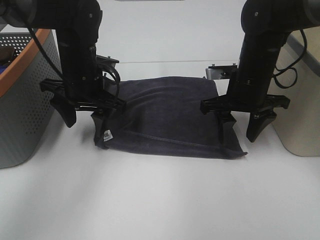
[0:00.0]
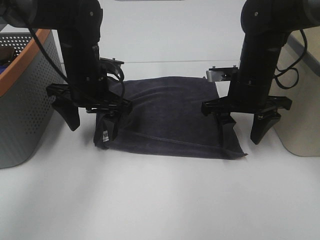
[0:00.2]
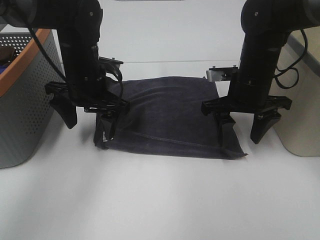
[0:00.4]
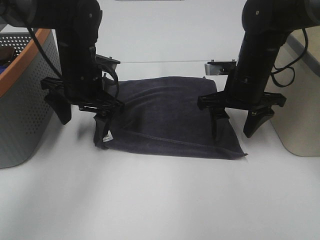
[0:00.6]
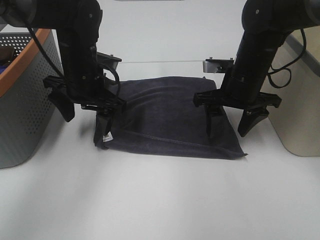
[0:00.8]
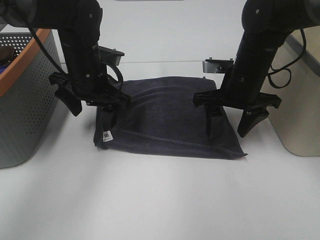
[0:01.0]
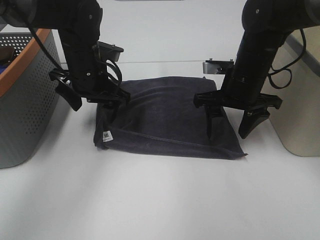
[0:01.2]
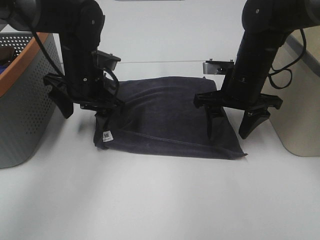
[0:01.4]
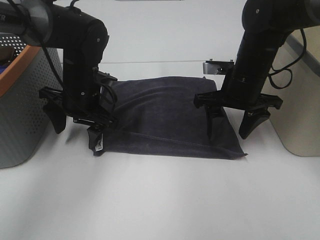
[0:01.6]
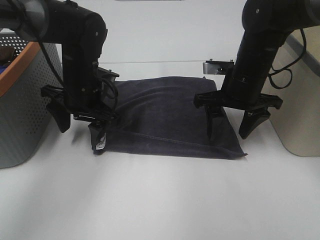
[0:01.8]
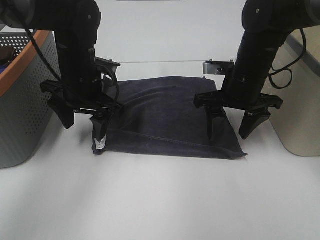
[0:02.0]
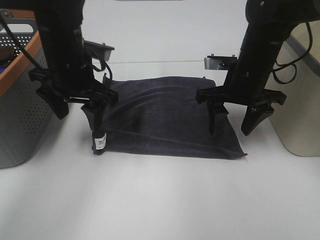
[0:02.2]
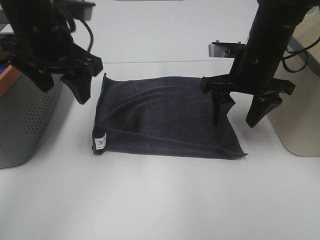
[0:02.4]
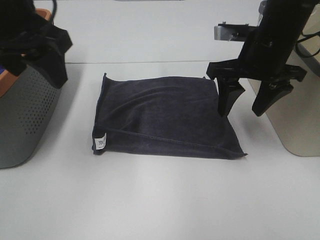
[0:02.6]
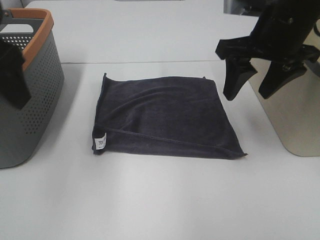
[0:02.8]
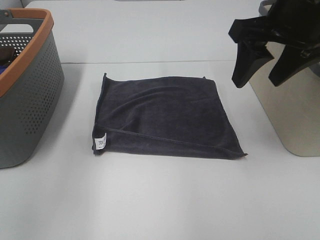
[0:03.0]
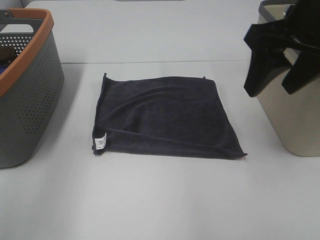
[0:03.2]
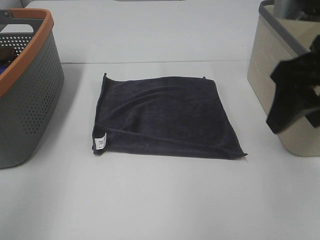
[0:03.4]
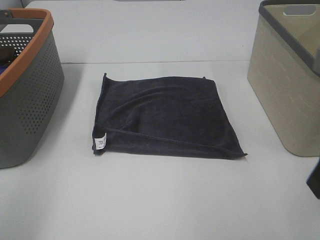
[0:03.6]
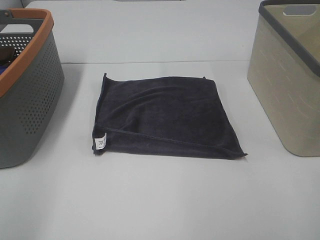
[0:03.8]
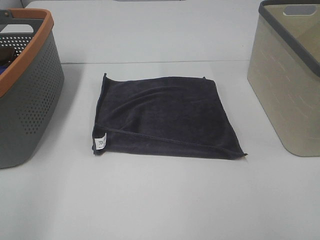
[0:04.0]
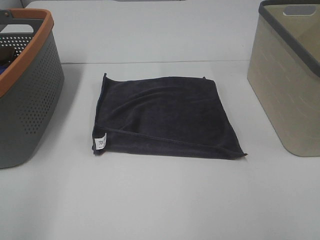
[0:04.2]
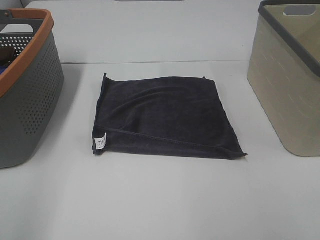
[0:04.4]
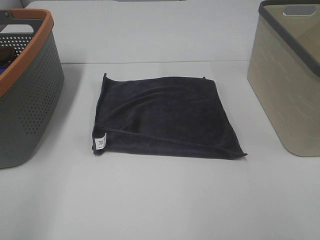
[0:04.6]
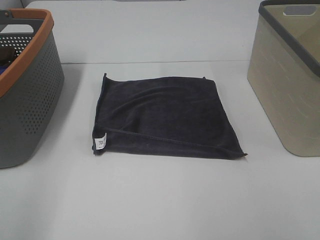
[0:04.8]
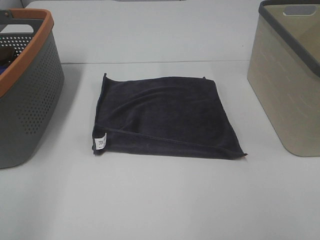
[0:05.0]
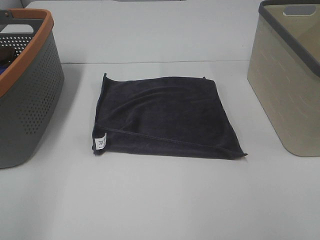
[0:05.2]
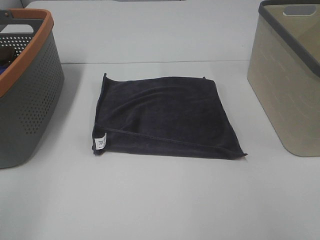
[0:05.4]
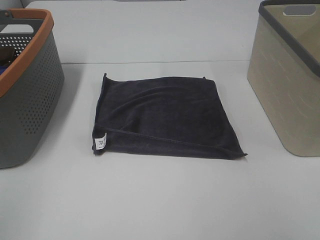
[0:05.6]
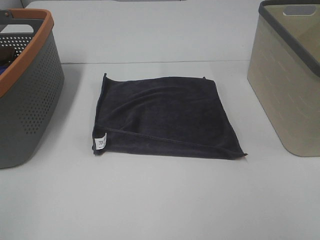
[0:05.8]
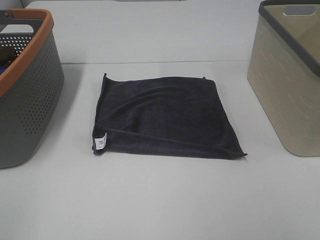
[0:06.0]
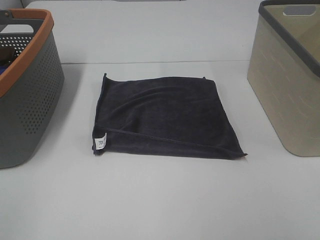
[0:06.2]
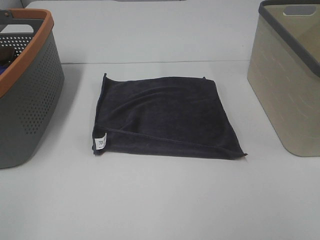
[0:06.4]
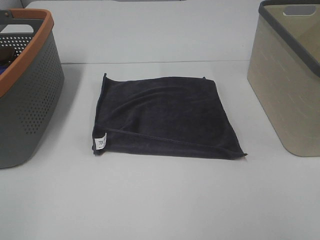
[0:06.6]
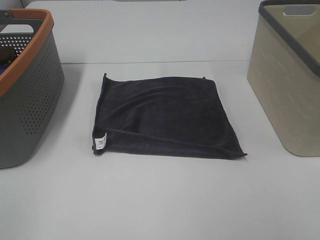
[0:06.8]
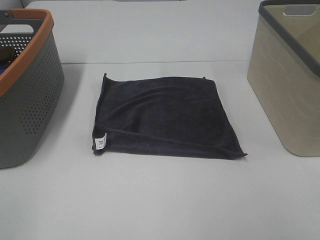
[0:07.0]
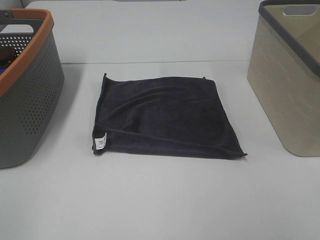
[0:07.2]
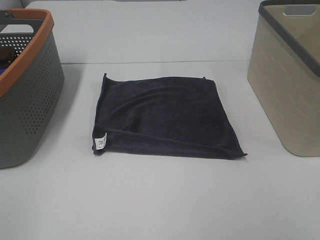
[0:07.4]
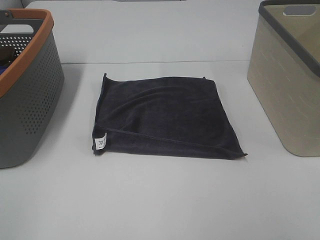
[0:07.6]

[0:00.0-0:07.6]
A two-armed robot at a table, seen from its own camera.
Task of the whole recording: Remove the towel and place it.
0:00.0 to 0:01.6: There are only small adjustments of the grippers.
0:01.6 to 0:03.0: The right gripper is displaced upward and backward by about 15 cm. Meanwhile the left gripper is displaced backward, upward and to the left by about 30 cm.
0:03.0 to 0:04.6: The left gripper travels backward and to the left by about 15 cm. Meanwhile the right gripper travels backward by roughly 30 cm.
0:06.0 to 0:07.6: Both grippers stay put.

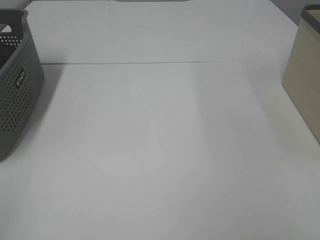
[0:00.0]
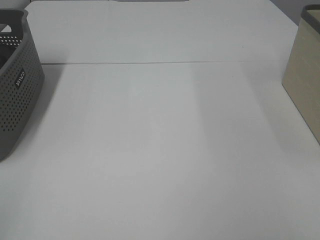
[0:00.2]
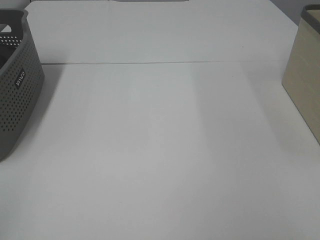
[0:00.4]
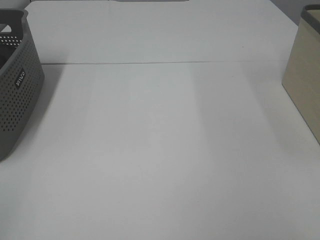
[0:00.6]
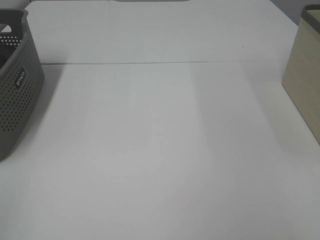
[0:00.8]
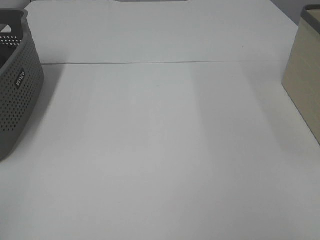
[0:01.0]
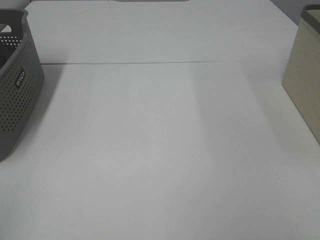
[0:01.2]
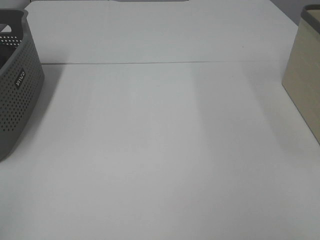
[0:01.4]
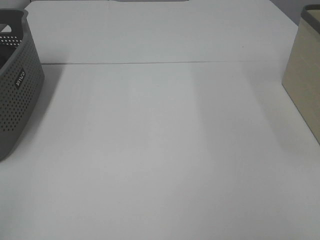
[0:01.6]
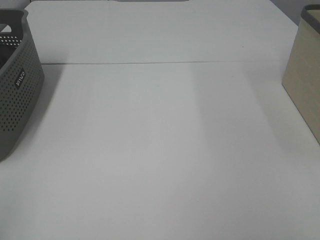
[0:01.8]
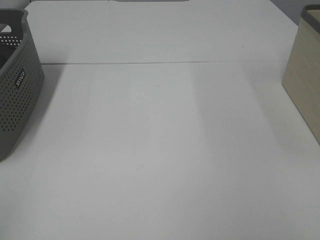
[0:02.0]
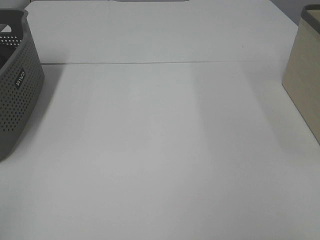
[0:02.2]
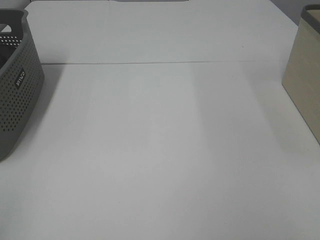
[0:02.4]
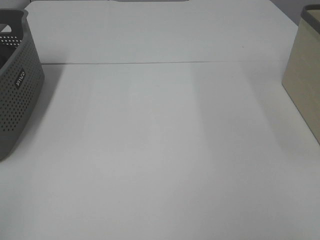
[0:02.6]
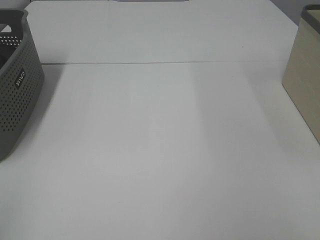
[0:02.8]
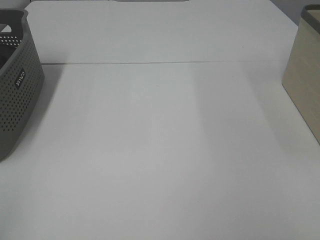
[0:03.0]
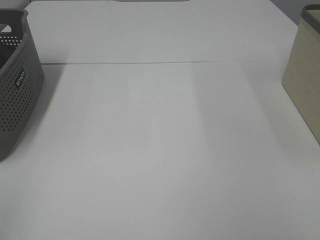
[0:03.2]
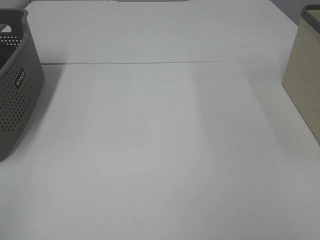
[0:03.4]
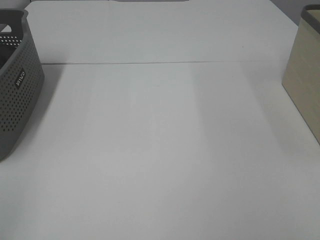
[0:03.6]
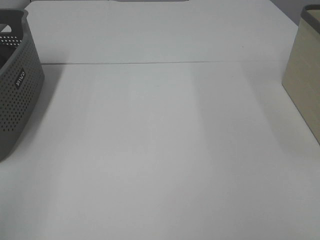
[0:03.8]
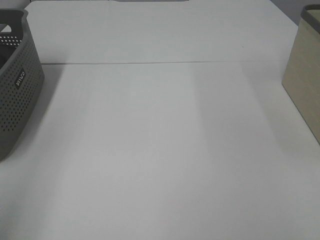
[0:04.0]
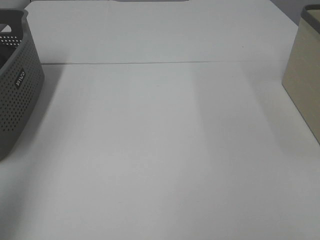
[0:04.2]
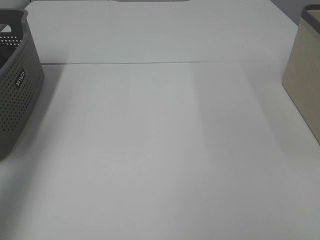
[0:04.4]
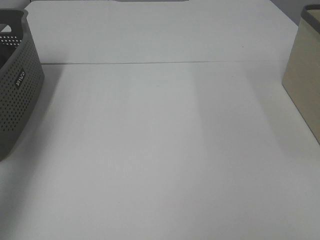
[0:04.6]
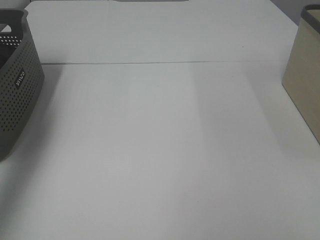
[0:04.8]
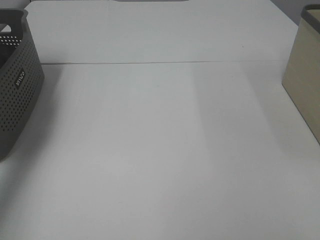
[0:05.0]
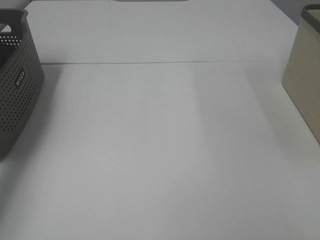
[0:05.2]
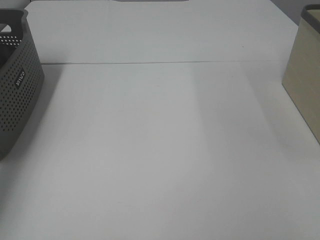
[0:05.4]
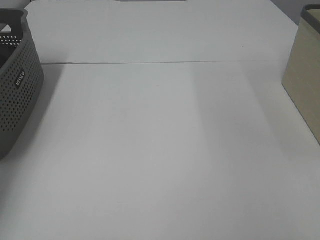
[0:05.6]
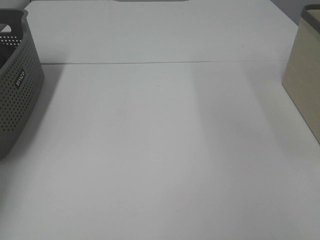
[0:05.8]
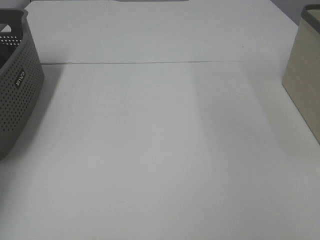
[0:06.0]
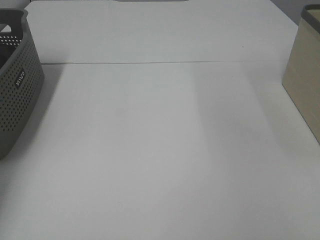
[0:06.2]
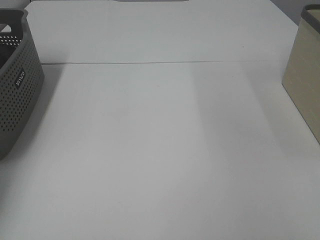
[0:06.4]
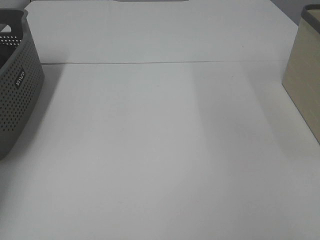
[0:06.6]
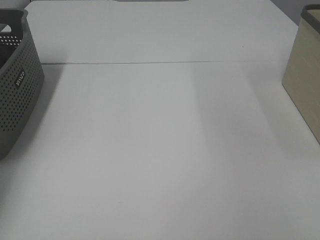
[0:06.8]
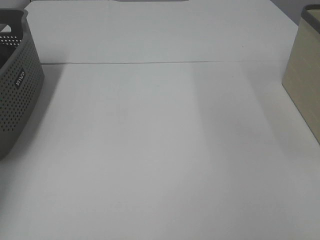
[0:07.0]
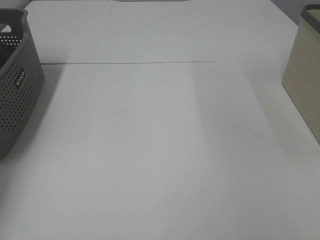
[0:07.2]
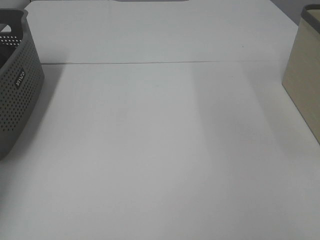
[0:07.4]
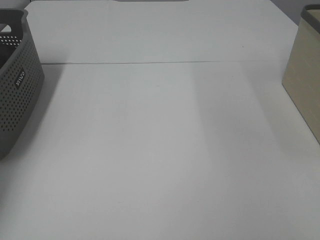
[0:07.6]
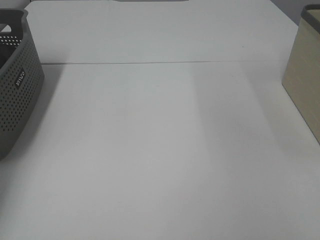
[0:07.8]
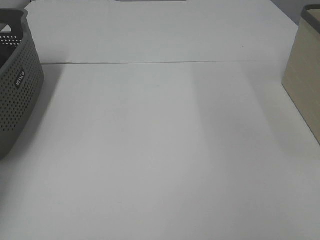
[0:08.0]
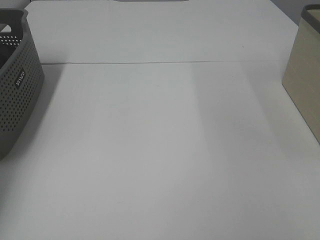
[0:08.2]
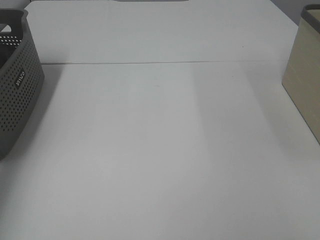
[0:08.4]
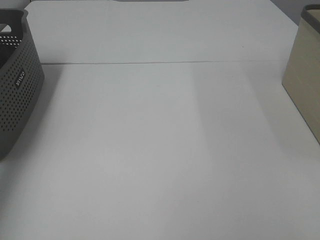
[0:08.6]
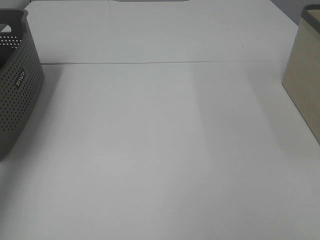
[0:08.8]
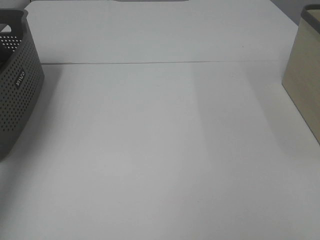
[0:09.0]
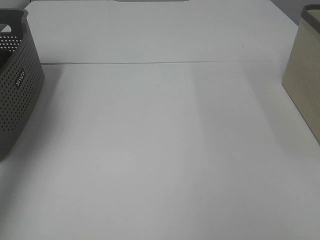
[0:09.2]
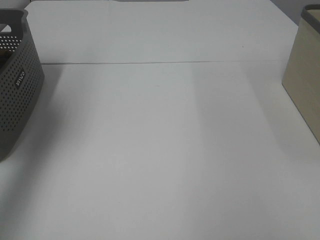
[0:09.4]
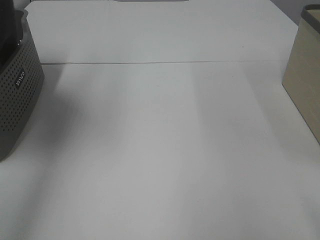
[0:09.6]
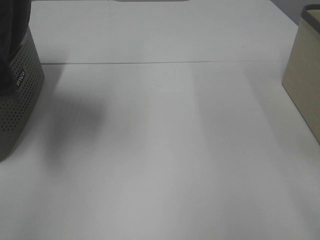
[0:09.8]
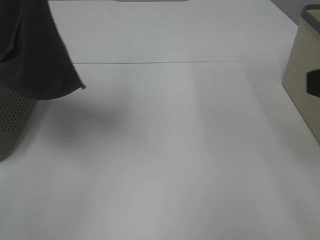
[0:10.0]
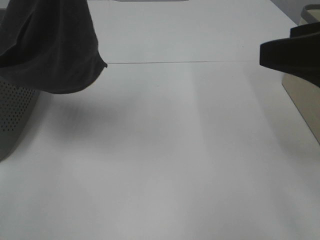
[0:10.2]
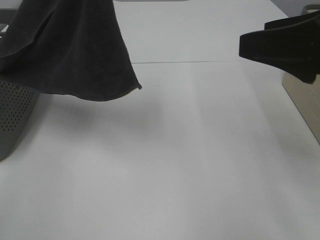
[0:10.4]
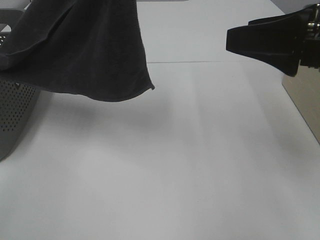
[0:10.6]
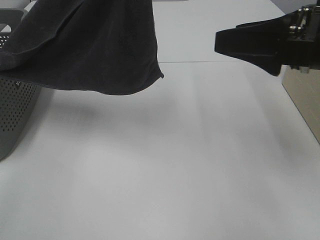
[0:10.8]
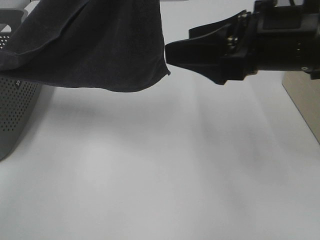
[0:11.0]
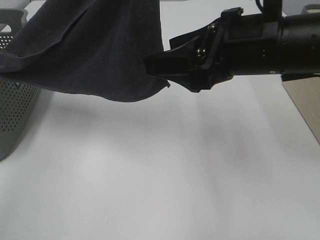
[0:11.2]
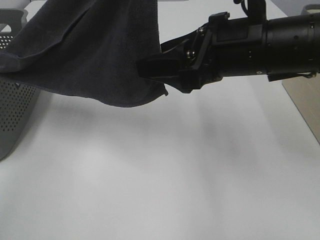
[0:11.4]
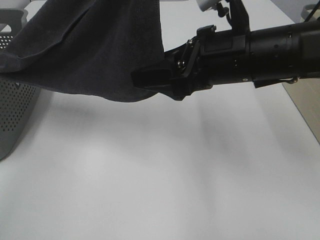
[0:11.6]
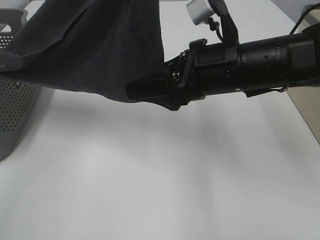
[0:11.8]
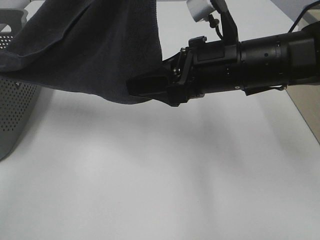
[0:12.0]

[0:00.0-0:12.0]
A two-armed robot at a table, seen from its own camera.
Task of the whole recording: Remove the towel and place it.
0:00.0 to 0:03.0: Neither gripper changes place.
0:03.0 to 0:04.4: The left gripper goes some 25 cm forward and upward.
0:04.4 to 0:06.0: The left gripper shifts some 30 cm forward and downward.
0:07.6 to 0:09.0: The left gripper moves upward and backward, approximately 25 cm.
0:09.0 to 0:10.4: The right gripper travels forward by approximately 20 cm. The left gripper shifts some 25 cm to the right.
0:10.4 to 0:12.0: The right gripper goes roughly 15 cm to the left, downward and forward.

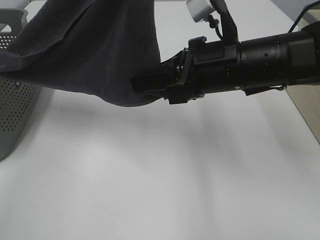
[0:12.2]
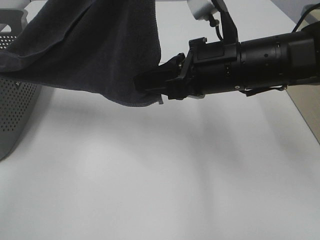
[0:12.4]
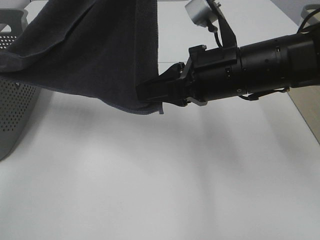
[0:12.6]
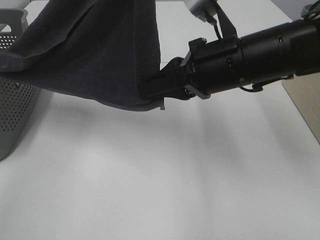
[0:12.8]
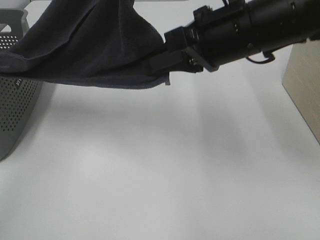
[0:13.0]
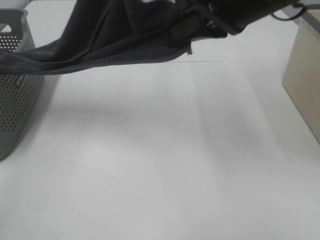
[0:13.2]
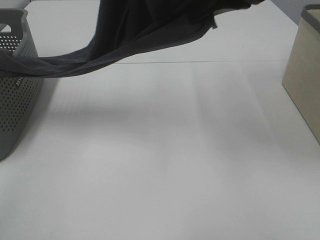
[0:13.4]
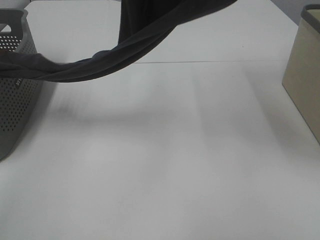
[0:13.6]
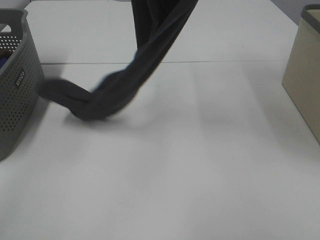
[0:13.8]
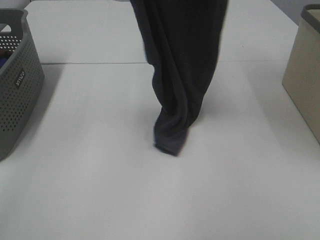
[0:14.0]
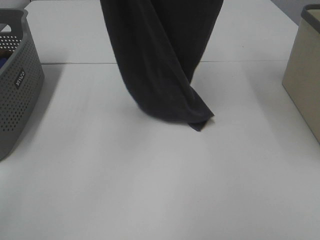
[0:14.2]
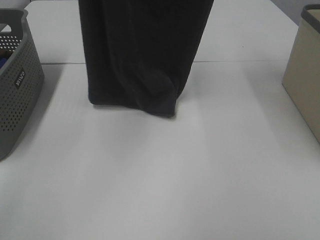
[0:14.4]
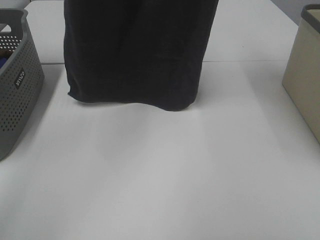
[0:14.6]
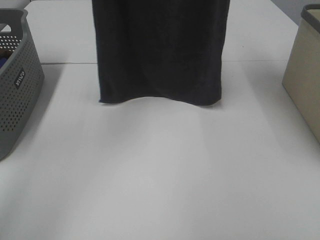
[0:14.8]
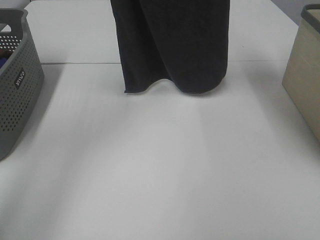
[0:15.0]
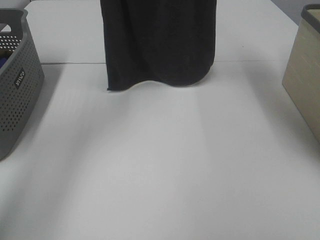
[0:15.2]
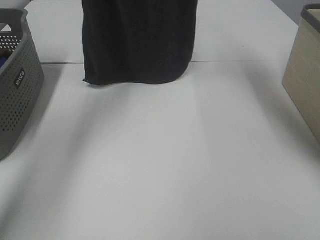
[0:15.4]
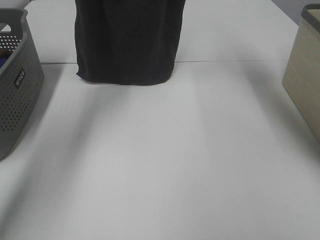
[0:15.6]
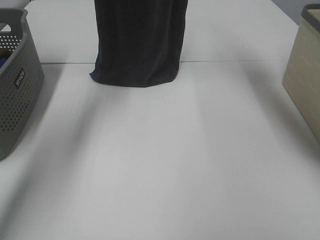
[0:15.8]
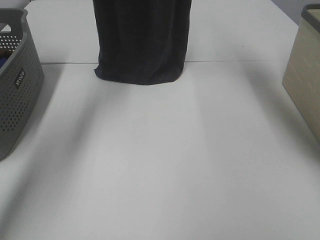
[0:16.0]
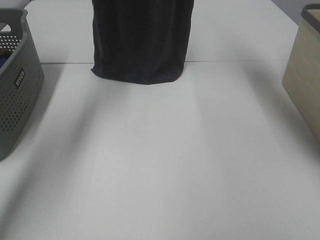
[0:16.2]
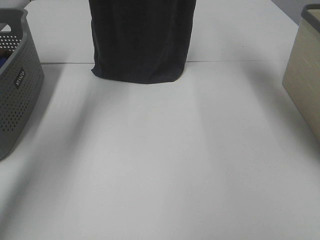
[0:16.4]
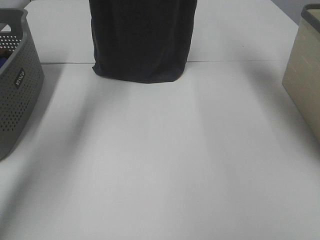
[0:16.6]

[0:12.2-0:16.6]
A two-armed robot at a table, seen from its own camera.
Task of the whole recording: Remove the towel and place it.
0:12.2 to 0:13.6: The right gripper goes some 20 cm upward, and closes its fingers.
0:13.6 to 0:15.2: The right gripper shifts approximately 15 cm forward and upward, while the left gripper moves forward and to the left, approximately 15 cm.
0:15.2 to 0:16.6: The grippers both shift forward by roughly 5 cm.
